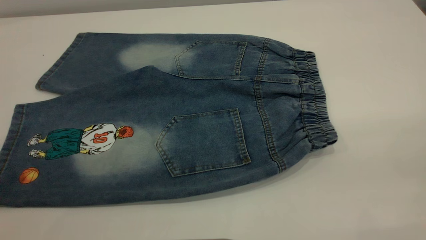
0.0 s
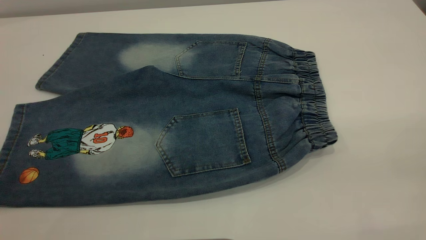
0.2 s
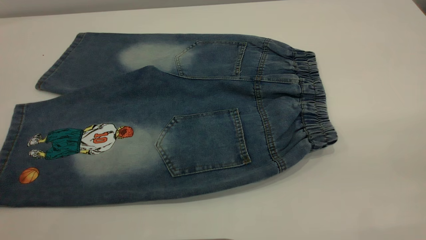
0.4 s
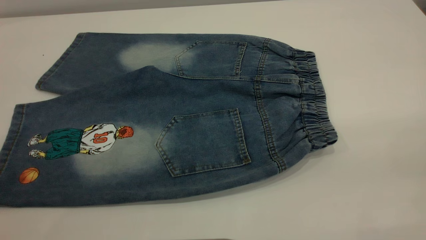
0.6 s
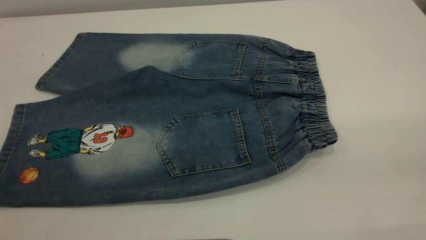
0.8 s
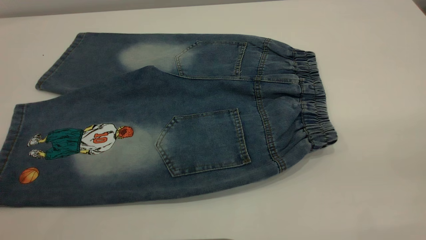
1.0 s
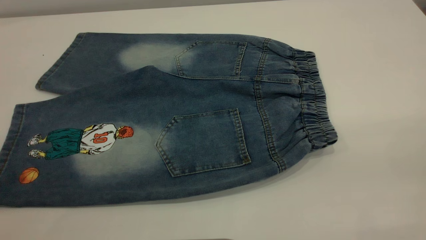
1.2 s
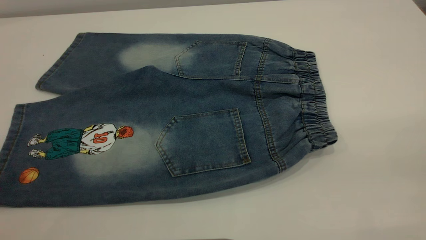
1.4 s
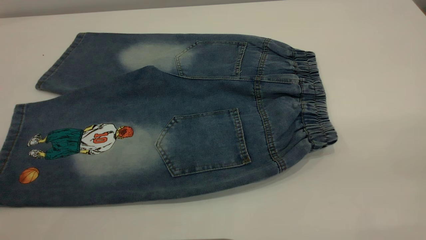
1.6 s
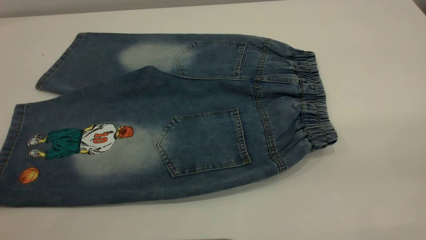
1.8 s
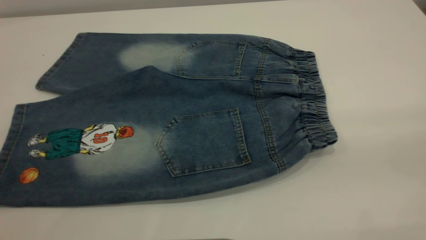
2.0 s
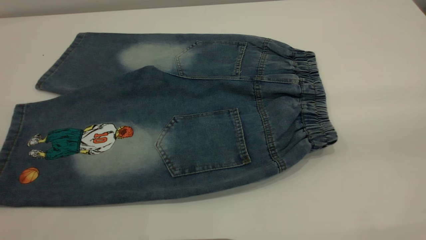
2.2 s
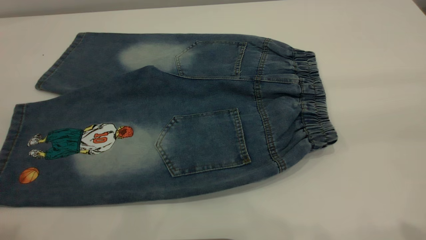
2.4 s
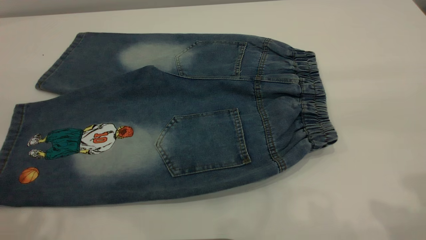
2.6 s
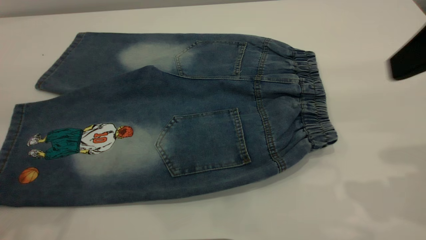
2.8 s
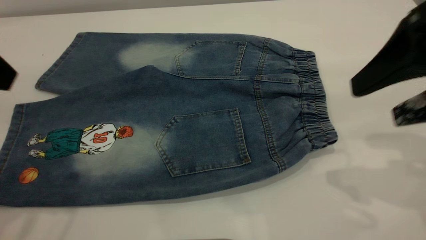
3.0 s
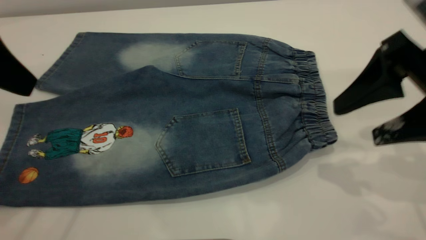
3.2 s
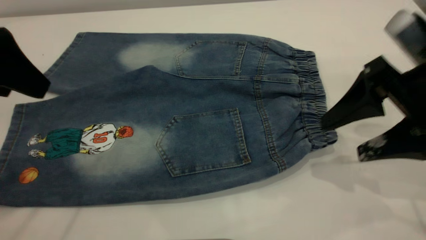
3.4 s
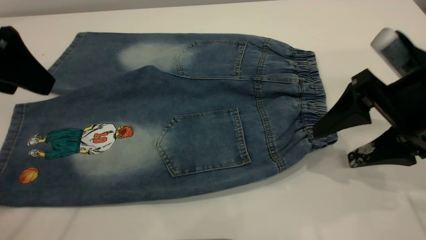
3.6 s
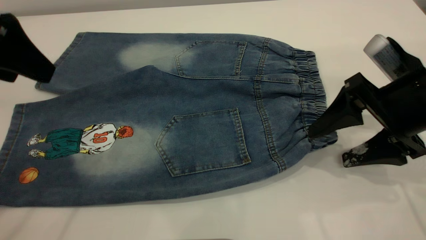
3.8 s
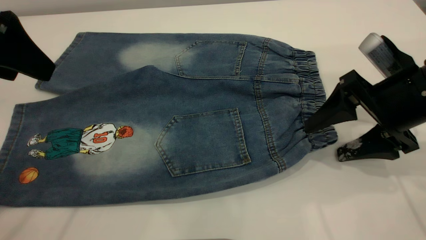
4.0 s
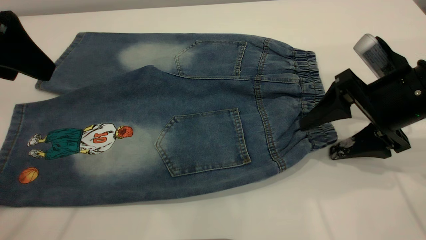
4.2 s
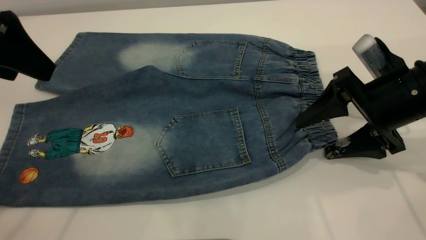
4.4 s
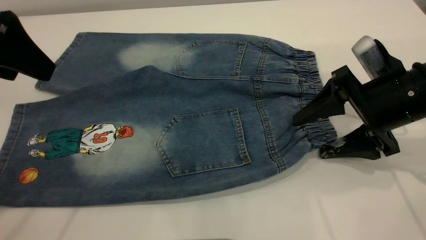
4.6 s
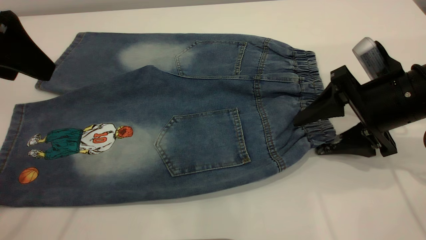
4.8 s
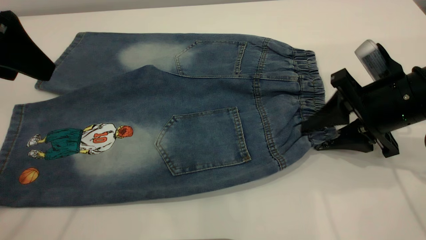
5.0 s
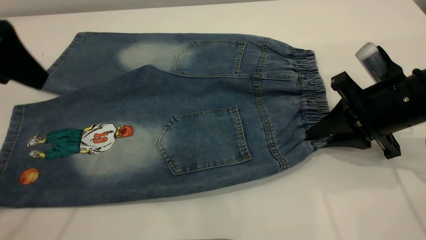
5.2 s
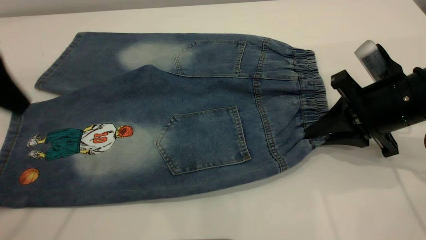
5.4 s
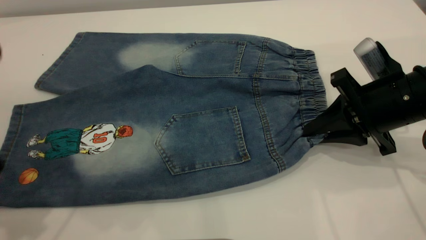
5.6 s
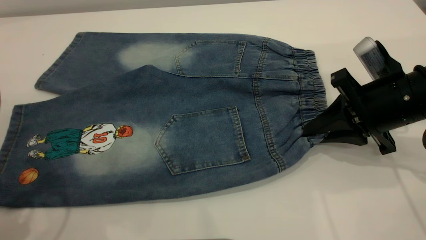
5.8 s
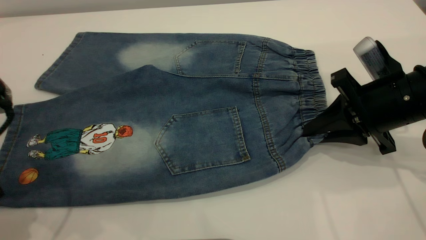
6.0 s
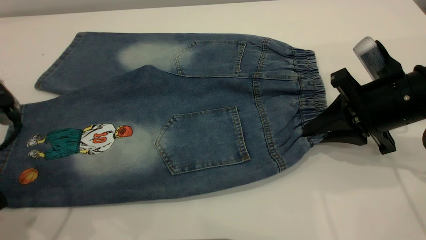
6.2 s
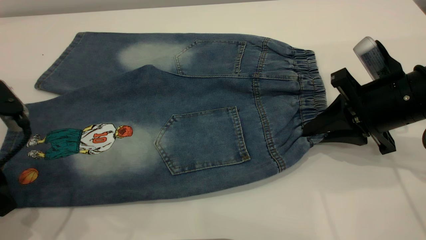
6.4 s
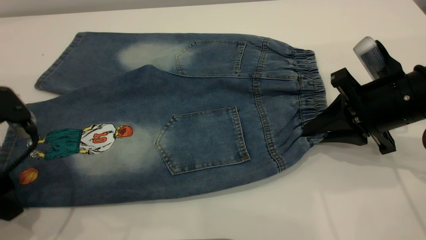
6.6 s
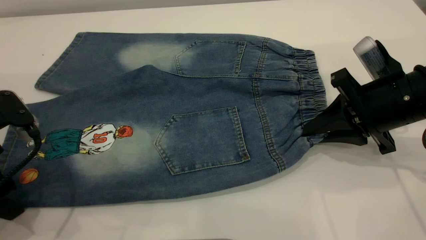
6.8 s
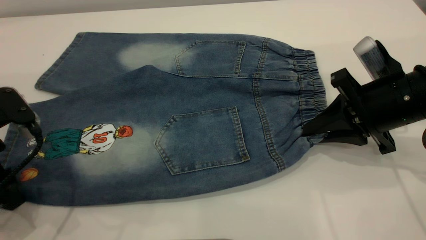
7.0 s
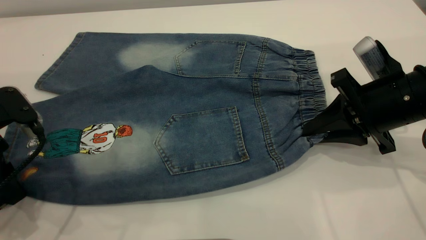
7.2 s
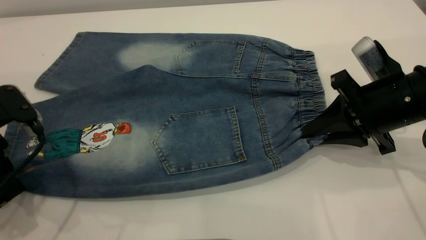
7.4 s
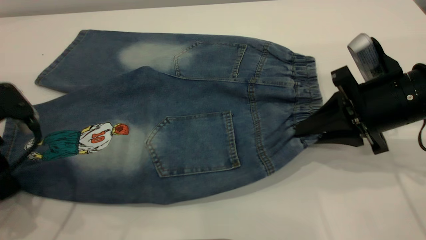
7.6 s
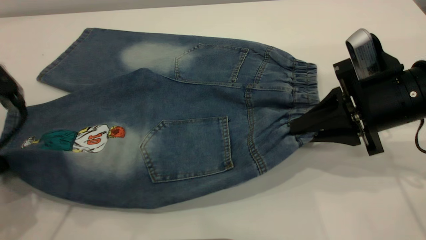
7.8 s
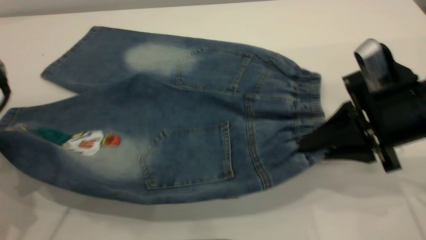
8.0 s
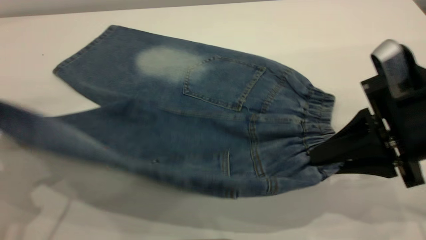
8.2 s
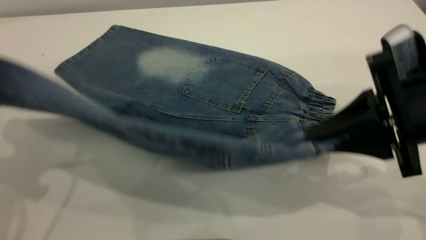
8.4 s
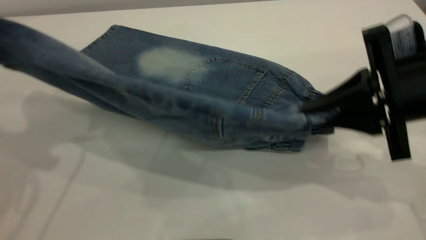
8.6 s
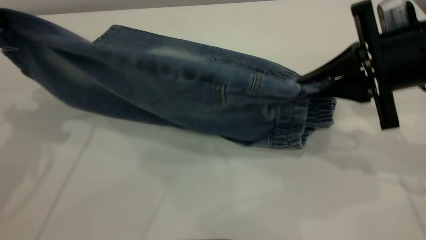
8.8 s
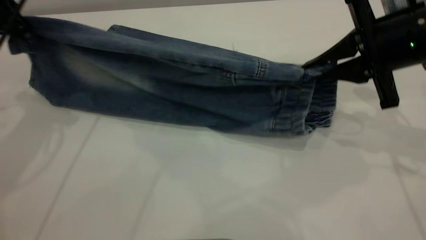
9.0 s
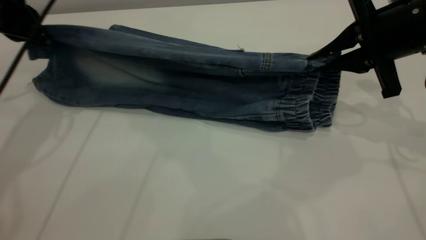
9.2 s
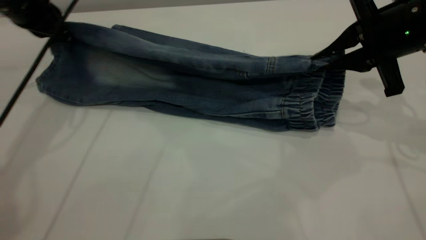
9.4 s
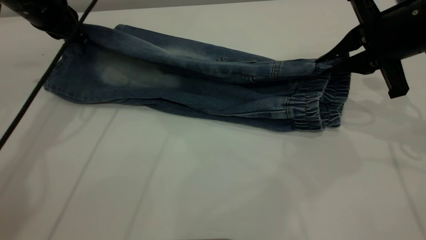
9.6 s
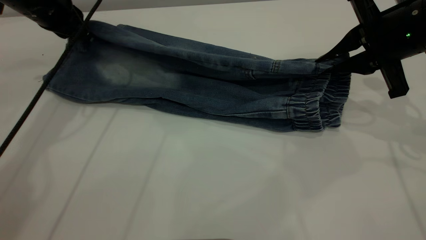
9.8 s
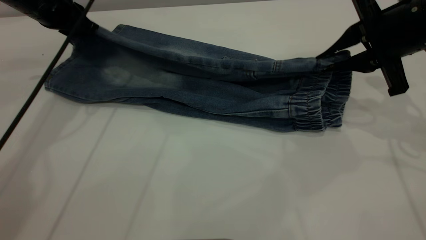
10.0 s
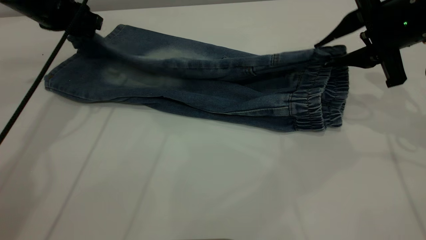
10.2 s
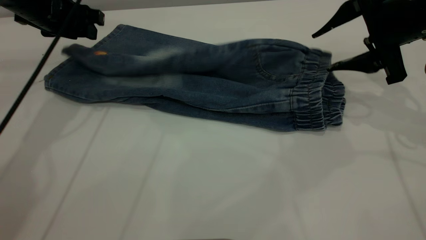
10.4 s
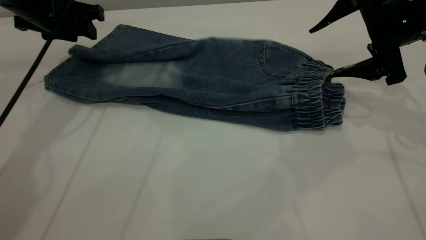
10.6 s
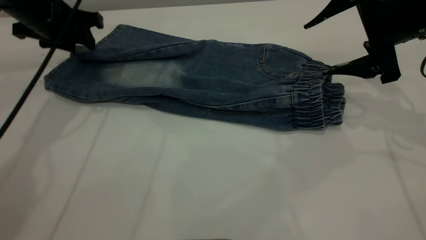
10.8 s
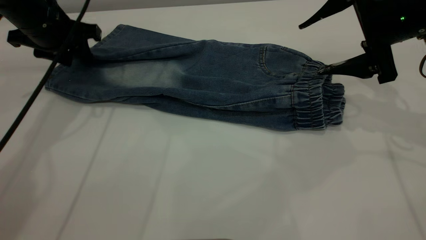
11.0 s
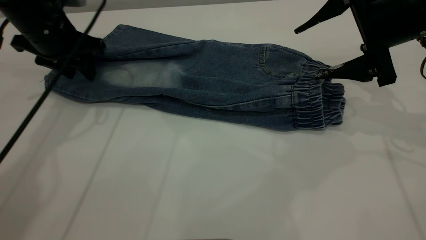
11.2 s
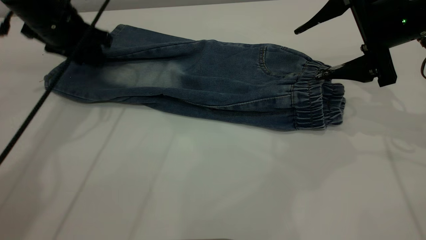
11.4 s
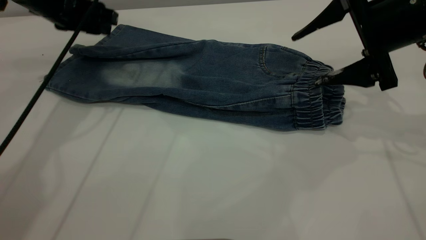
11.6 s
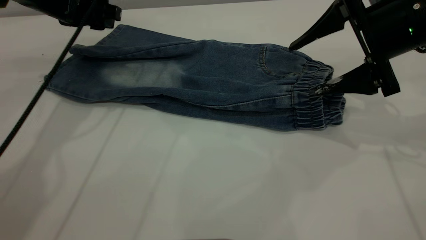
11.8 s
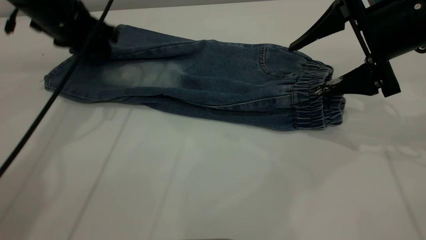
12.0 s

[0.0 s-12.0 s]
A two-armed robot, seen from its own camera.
Step, 0.0 to 10.6 s: Fold the bottom of the pants upward.
0.0 to 1.6 s: Both grippers stay about where they are.
1.6 to 3.0 s: The right gripper heads forward and downward, covering some 25 cm.
3.0 to 4.4 s: The right gripper travels downward and forward by some 15 cm.
4.4 to 6.0 s: The left gripper heads downward, covering some 10 cm, while the right gripper closes.
6.0 to 7.6 s: The left gripper closes.
7.6 to 9.0 s: The left gripper goes approximately 15 cm forward and upward, while the right gripper heads upward, covering approximately 5 cm, and travels backward and back again, about 5 cm each way.
9.0 to 10.4 s: The right gripper opens up. Meanwhile the left gripper is displaced forward and downward by some 10 cm, and opens.

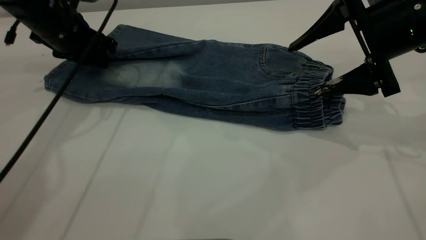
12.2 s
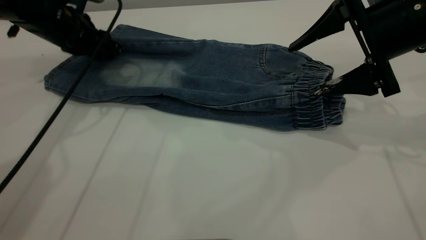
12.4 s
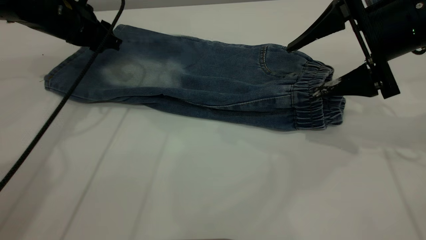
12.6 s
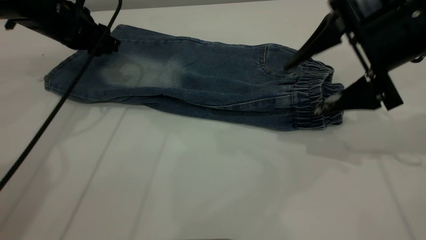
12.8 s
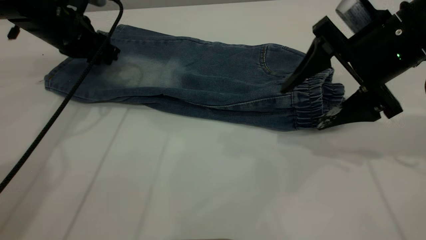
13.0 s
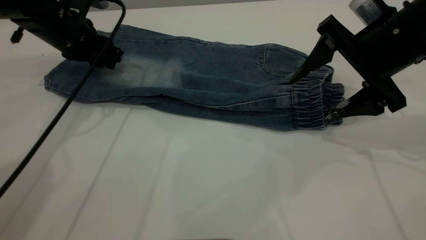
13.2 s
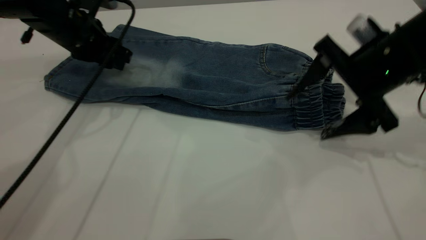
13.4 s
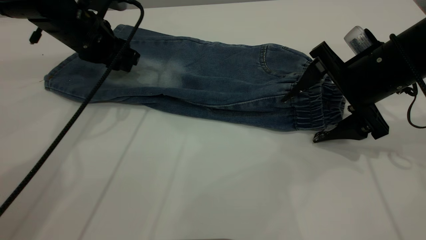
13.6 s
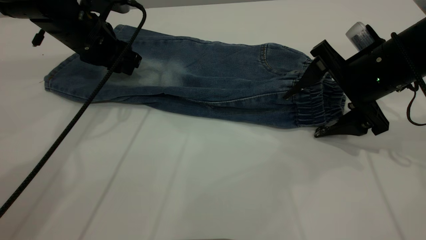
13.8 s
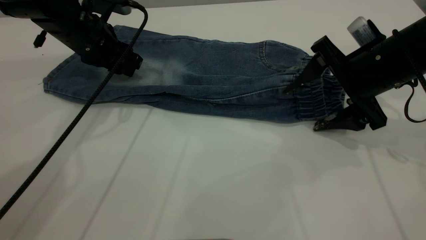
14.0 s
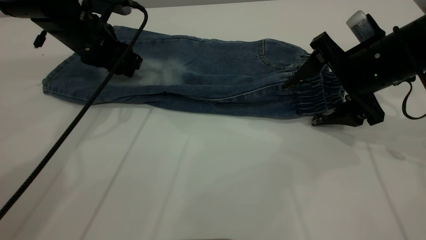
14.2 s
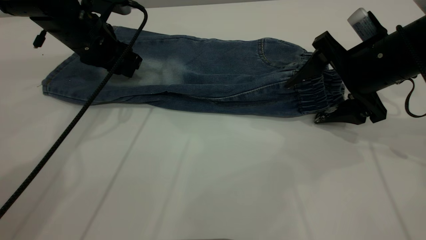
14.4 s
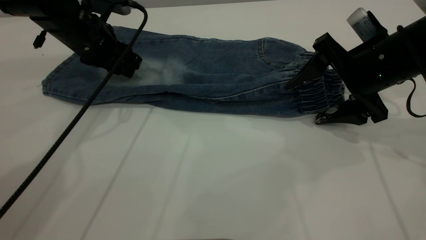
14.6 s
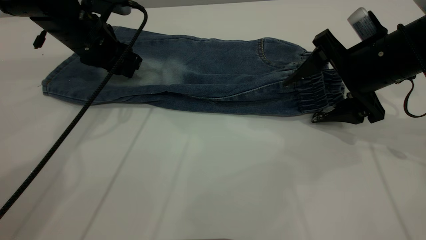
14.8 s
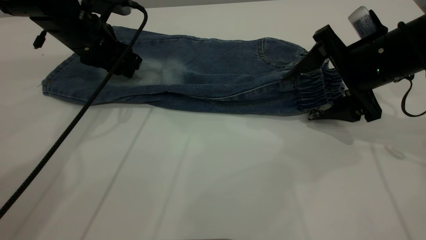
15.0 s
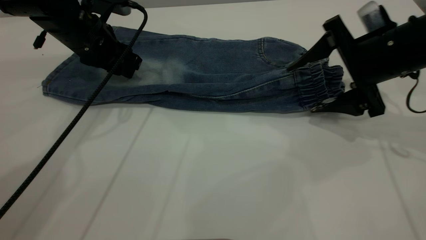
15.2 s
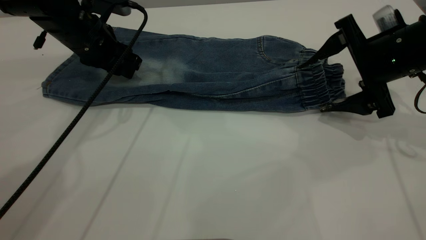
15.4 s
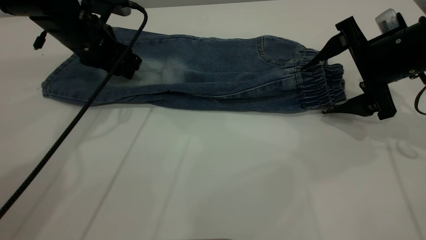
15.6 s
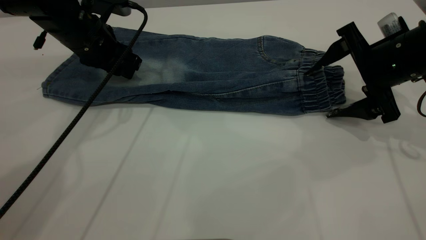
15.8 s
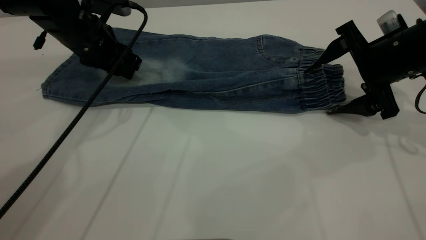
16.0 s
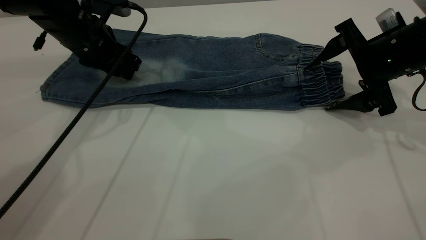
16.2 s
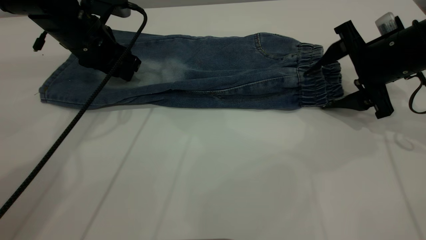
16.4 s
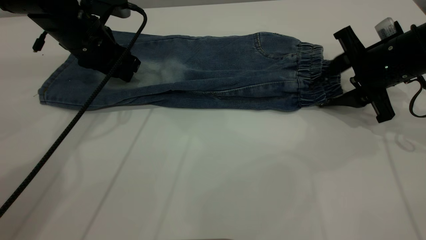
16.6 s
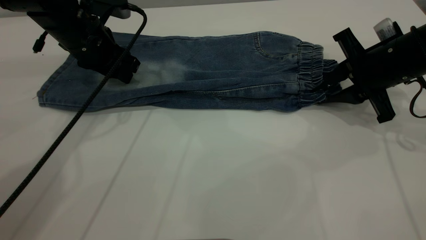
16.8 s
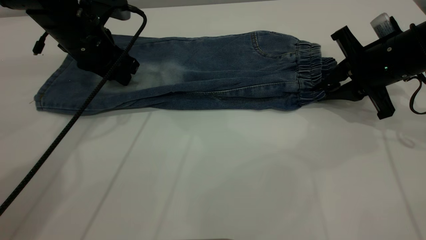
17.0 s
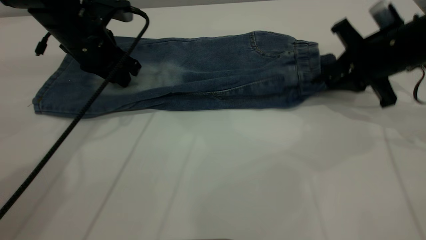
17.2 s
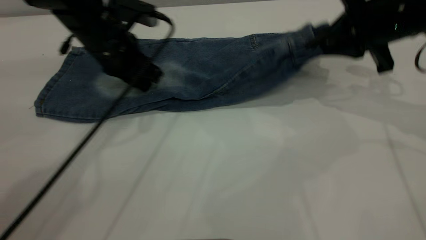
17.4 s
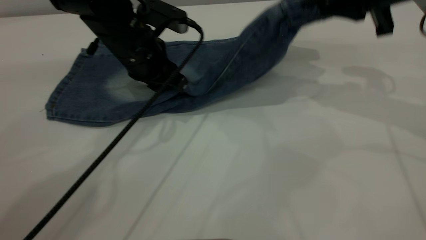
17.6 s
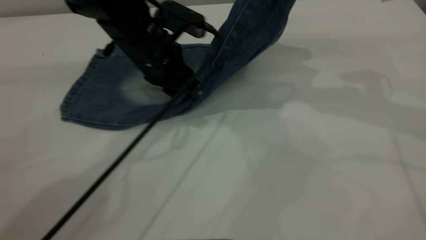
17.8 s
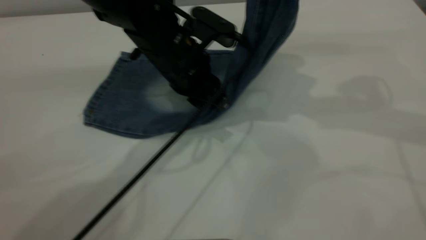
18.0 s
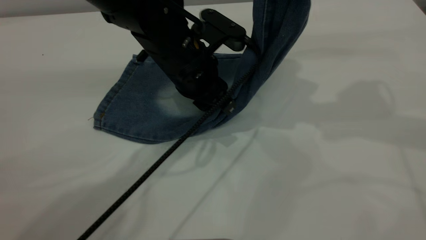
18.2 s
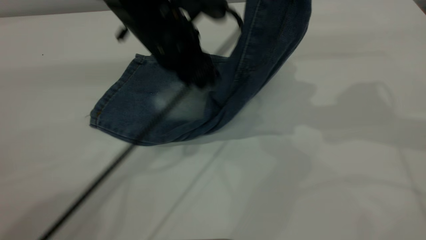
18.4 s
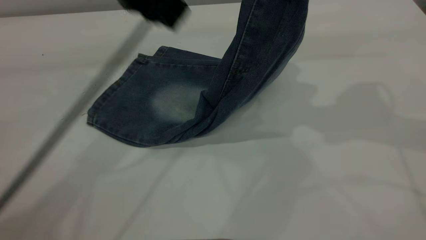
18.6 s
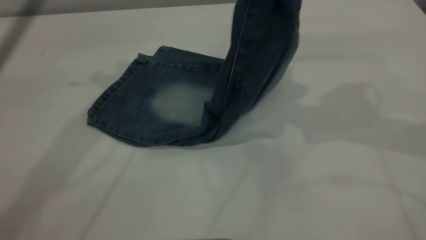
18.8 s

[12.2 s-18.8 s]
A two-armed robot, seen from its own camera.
12.2 to 13.8 s: The right gripper shifts roughly 5 cm downward.
13.8 to 15.4 s: The grippers move only a little.
15.4 to 17.2 s: The right gripper closes up.
17.2 to 18.8 s: Both grippers travel together upward, approximately 20 cm.
